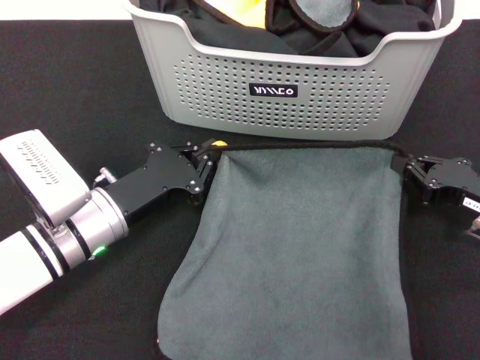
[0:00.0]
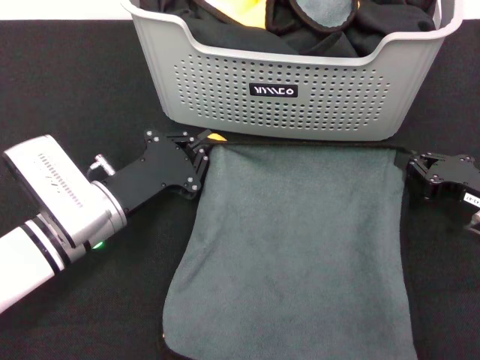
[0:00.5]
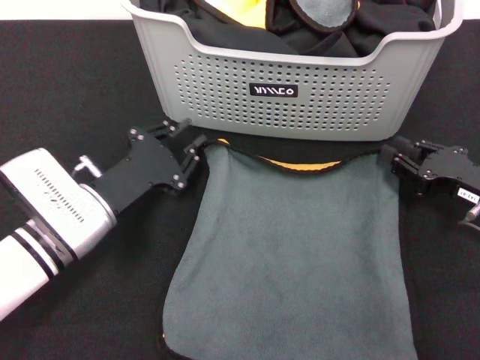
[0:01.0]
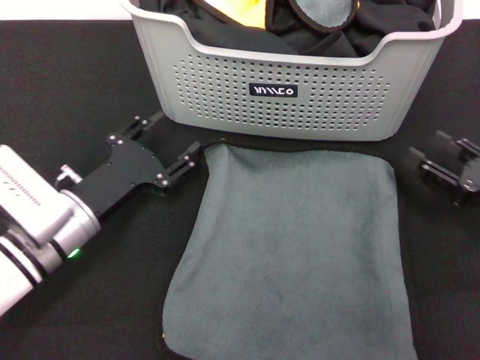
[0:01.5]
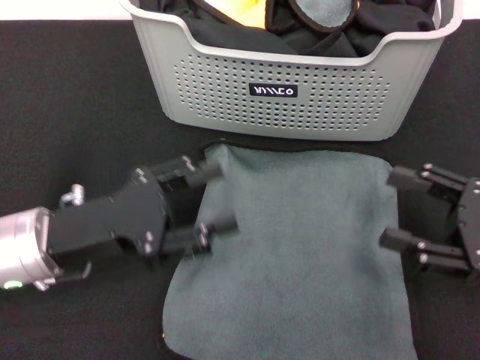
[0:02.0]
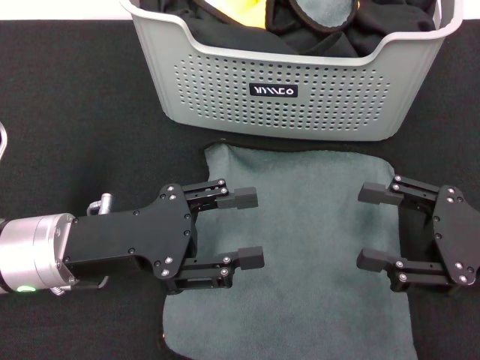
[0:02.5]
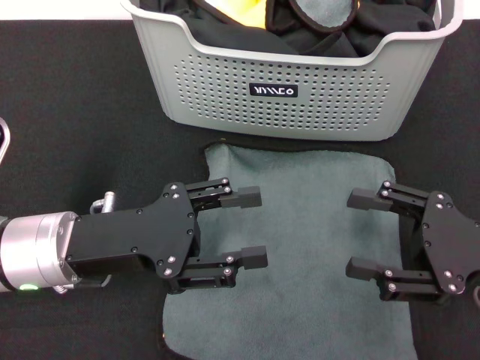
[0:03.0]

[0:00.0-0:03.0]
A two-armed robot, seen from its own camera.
Task of the whole recording: pick up the towel from the storage box and lay it flat on the black tablecloth.
0:00.0 to 0:01.5: The left gripper opens up, while the right gripper opens up.
0:01.5 to 0:03.0: The left gripper goes some 5 cm upward; the right gripper ends up approximately 5 cm from where it was.

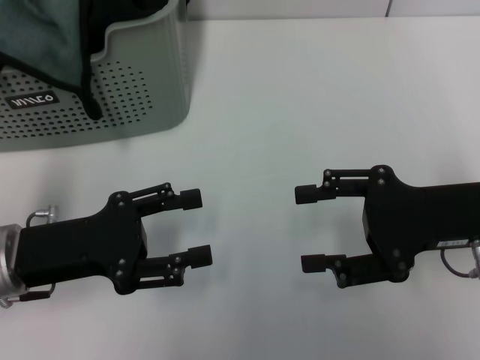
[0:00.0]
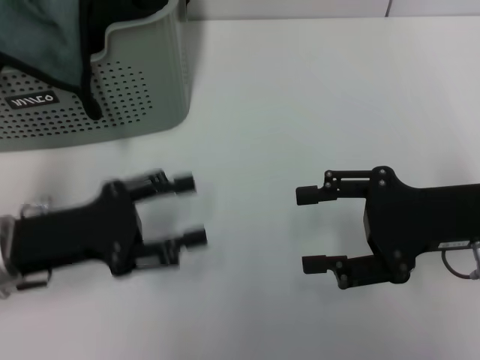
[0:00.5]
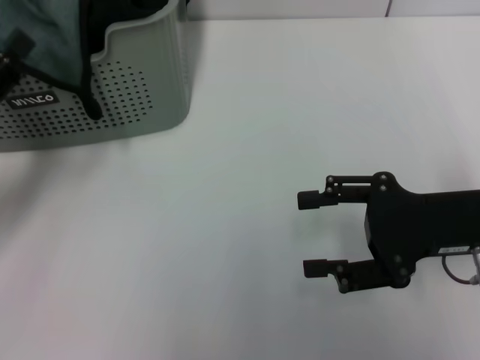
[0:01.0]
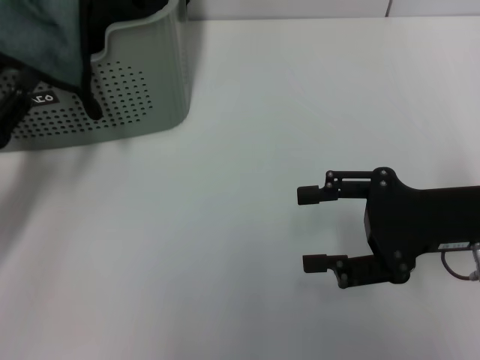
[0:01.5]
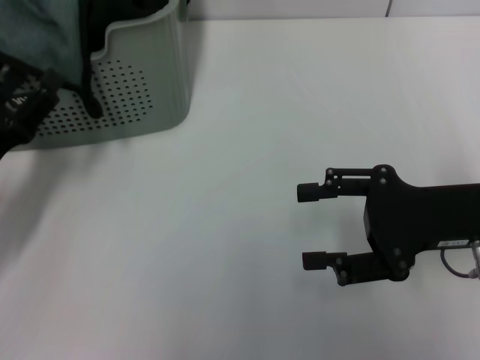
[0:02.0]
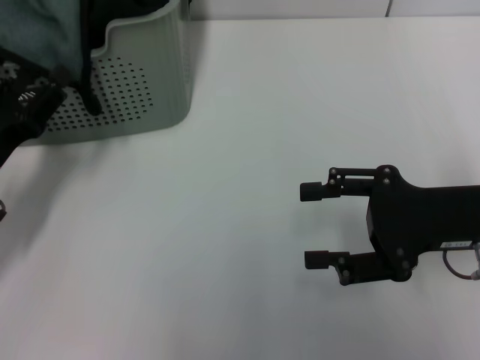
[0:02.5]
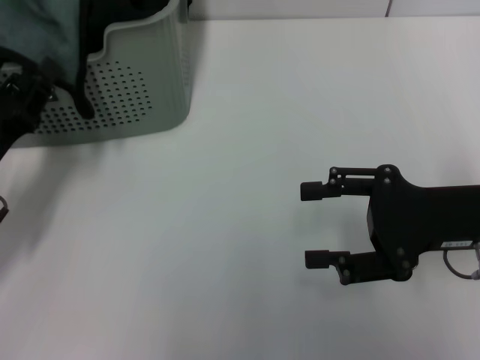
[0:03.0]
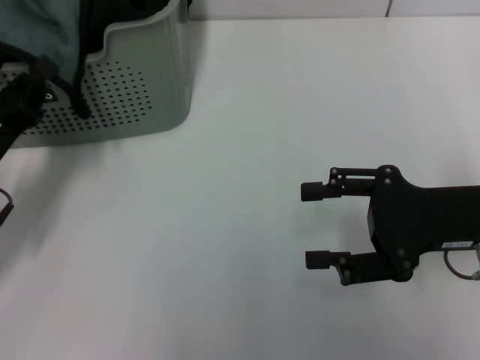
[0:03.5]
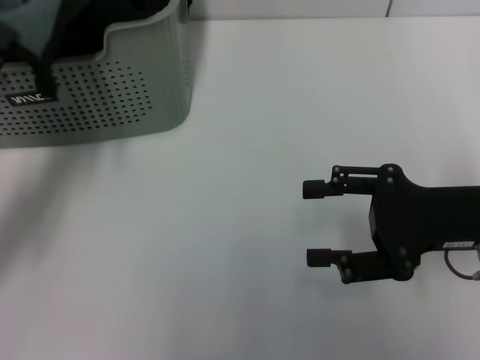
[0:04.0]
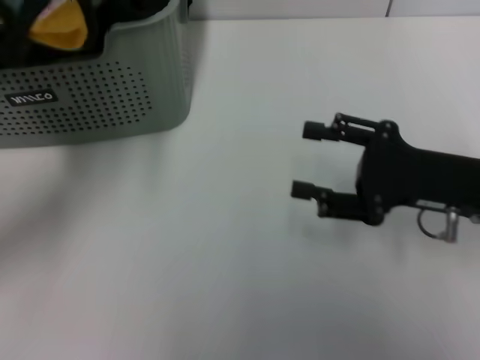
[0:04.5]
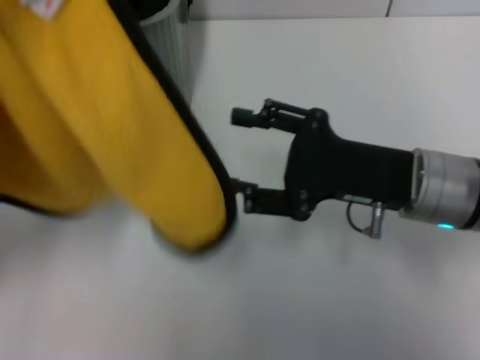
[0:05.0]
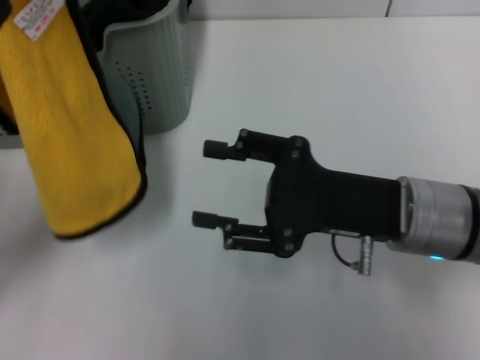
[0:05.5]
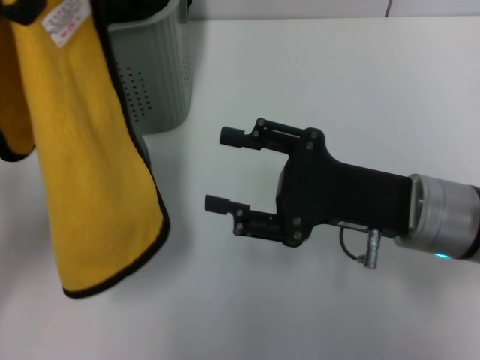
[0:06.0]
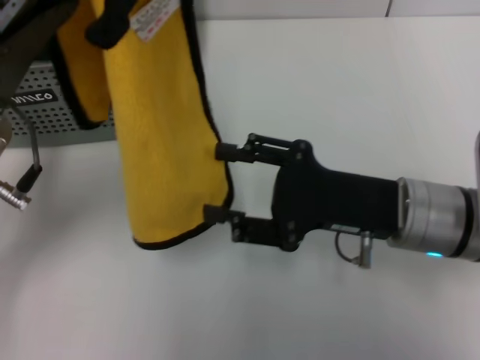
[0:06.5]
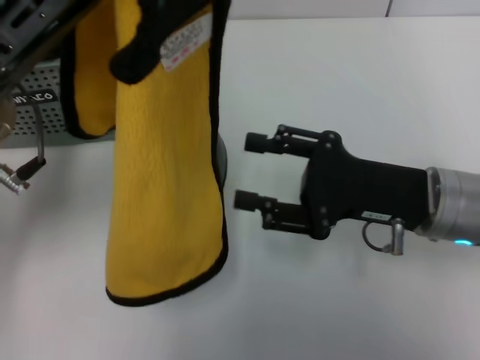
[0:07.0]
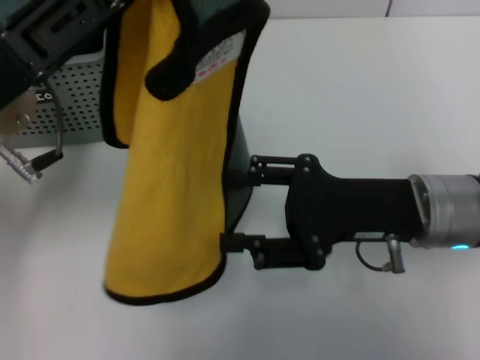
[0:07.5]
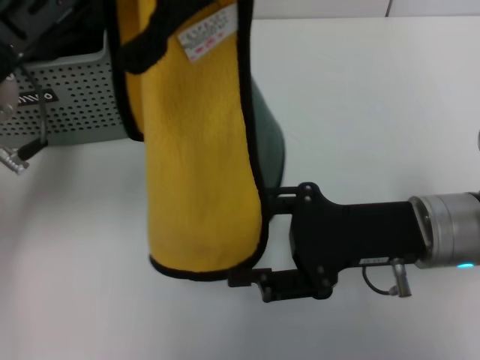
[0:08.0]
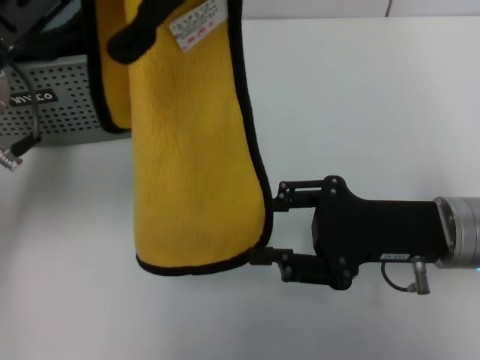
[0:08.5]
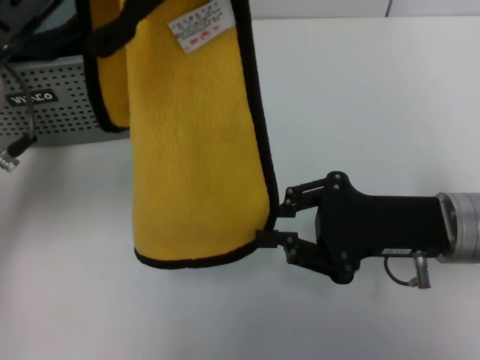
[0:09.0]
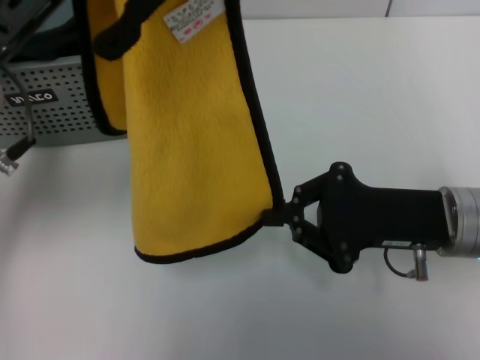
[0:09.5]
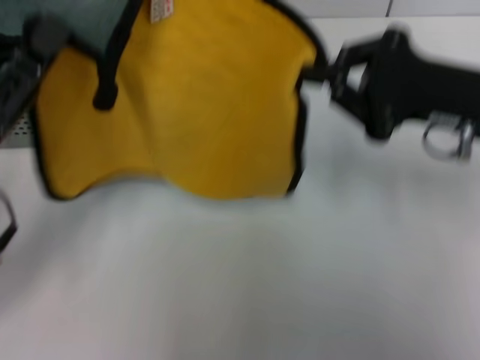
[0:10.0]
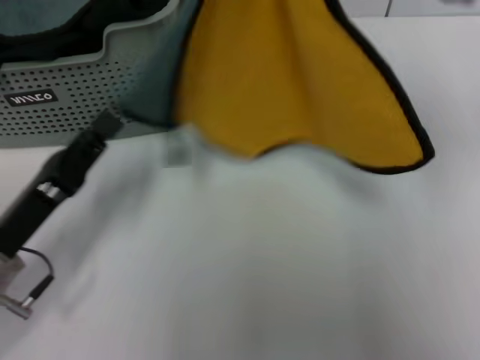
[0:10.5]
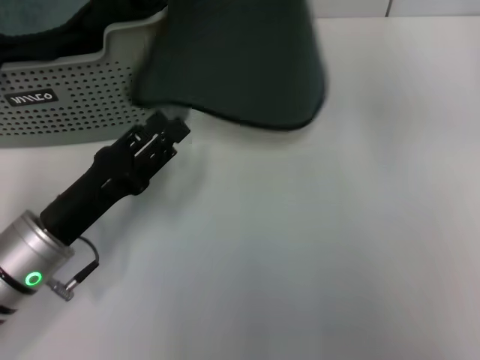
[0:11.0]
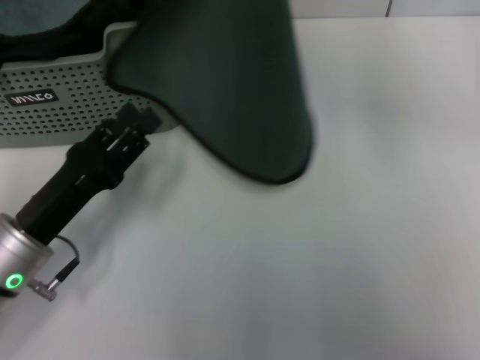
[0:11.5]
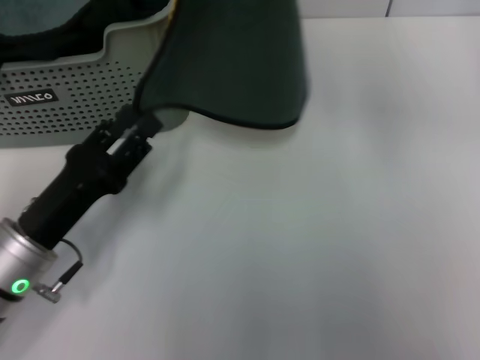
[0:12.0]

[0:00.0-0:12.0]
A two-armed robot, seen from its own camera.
Task of the whole recording: pick up the towel from the storage box and lay it flat on the table.
Step, 0:00.0 to 0:03.0: Pick up a towel with the left gripper.
Step, 0:03.5 to 0:09.0: Spread the towel flat with the left gripper.
0:00.0 to 0:02.0: The left gripper goes approximately 5 cm to the left.
0:02.0 to 0:04.0: The left gripper closes.
0:04.0 to 0:06.0: The left gripper heads upward and to the right, covering about 10 cm. Meanwhile the right gripper is displaced to the left by about 5 cm.
0:06.0 to 0:08.0: The left gripper changes place by about 5 cm.
0:08.0 to 0:10.0: The right gripper travels upward by roughly 5 cm, and closes up; the left gripper is displaced downward and backward by roughly 10 cm.
0:10.0 to 0:12.0: The right gripper travels upward by approximately 15 cm, while the left gripper shifts about 5 cm downward, and opens.

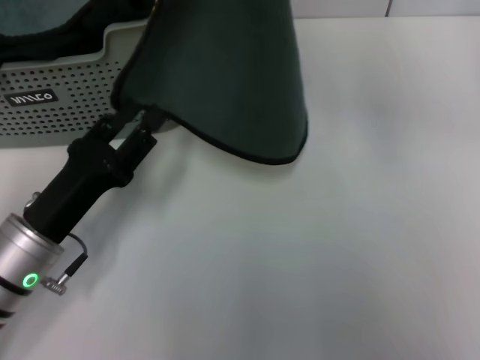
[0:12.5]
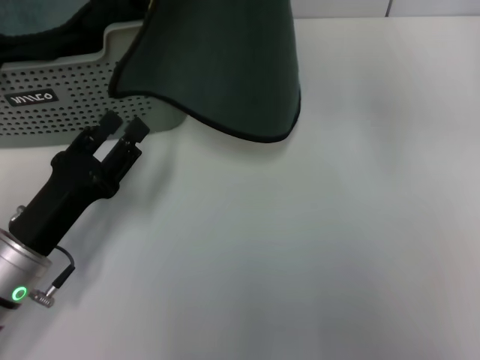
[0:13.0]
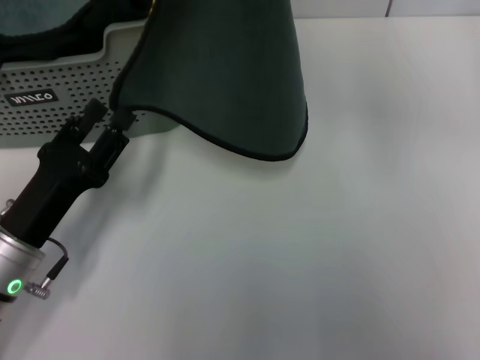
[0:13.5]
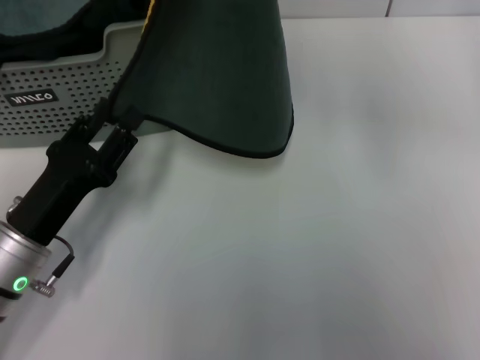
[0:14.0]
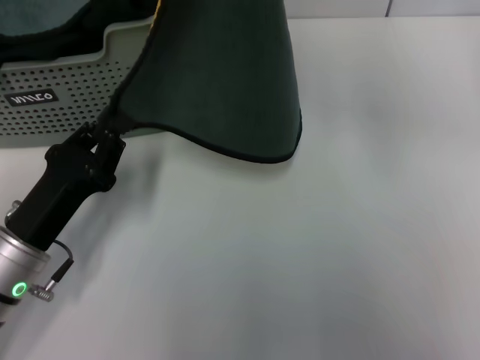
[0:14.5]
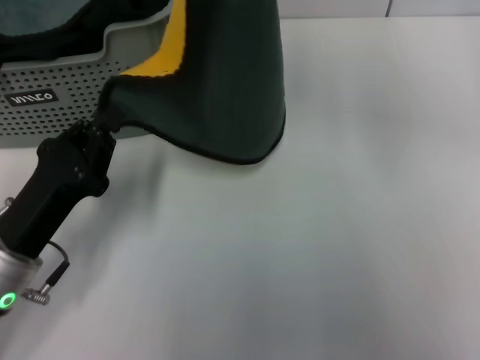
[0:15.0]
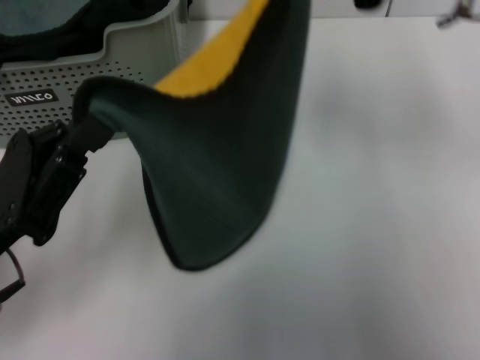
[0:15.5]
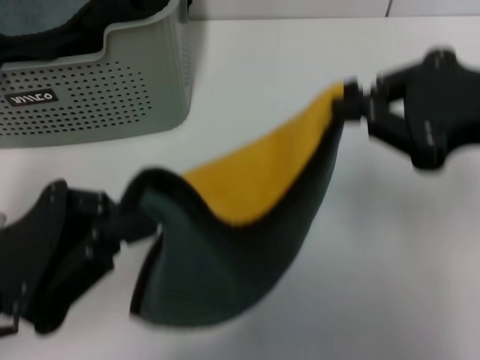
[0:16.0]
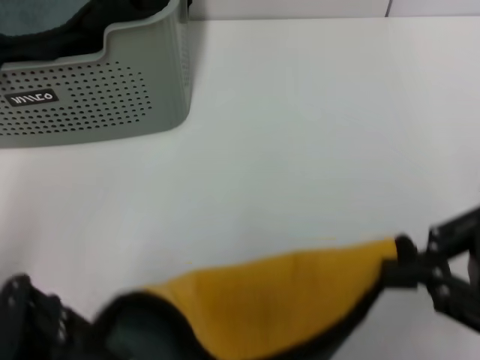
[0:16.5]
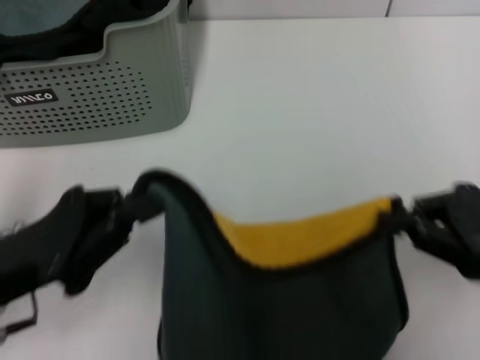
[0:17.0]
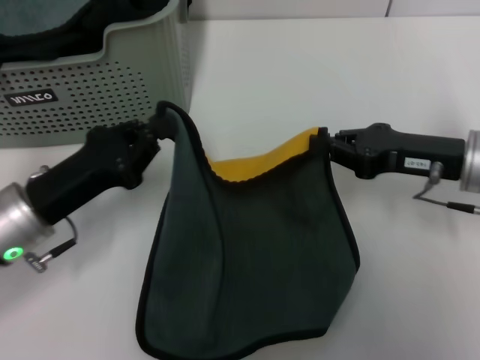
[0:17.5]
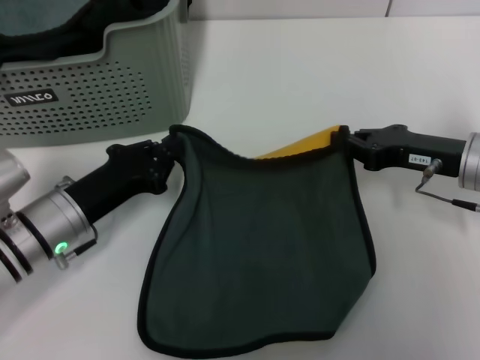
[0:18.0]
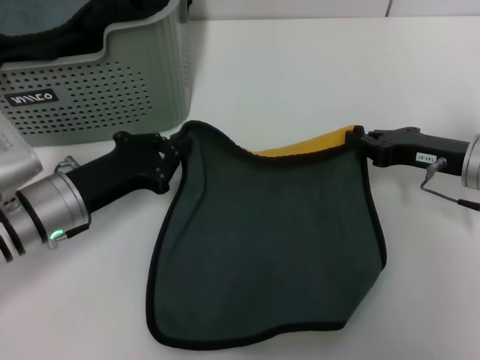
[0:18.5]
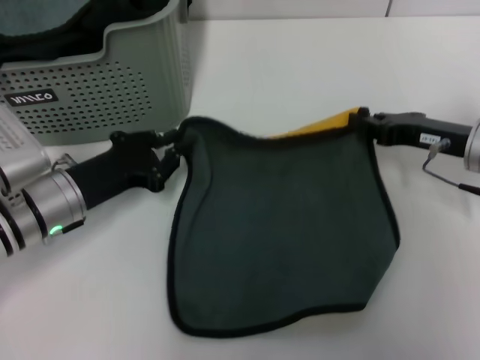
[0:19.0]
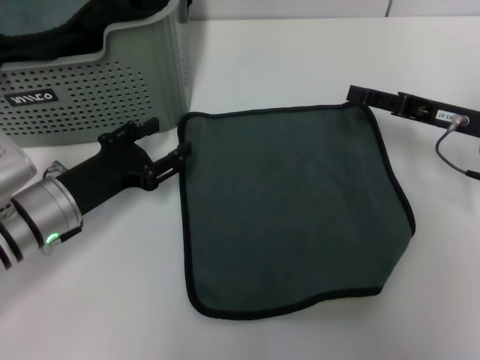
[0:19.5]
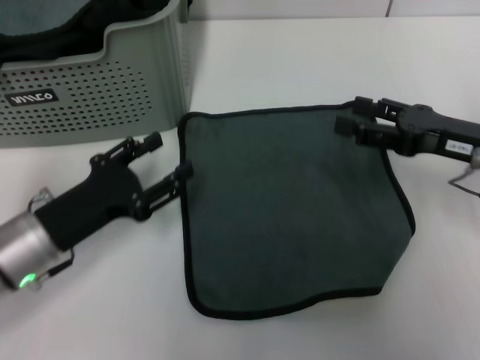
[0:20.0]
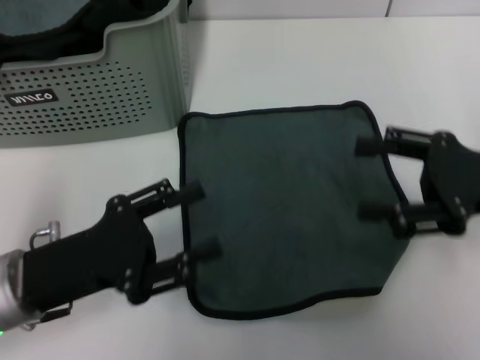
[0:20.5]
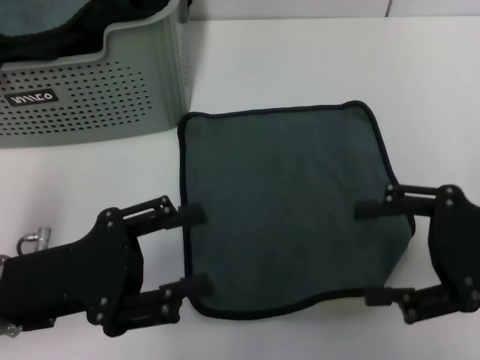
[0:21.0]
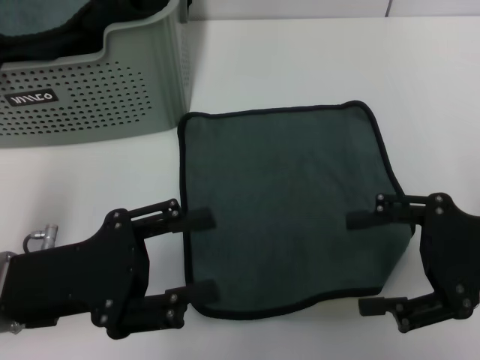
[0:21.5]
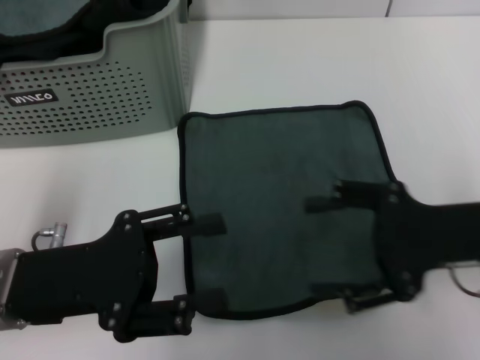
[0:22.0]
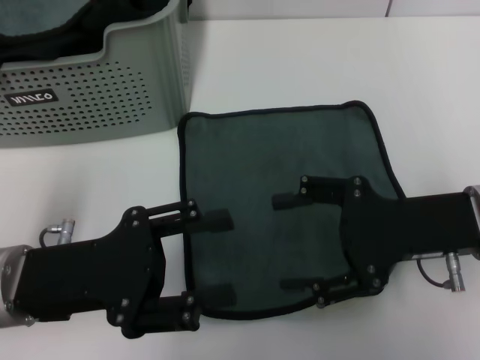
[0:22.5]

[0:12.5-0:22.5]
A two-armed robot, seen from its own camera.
Task of the whole recording: pick up the towel from the storage box and lay it flat on the table.
Step, 0:12.5 to 0:19.0: Spread the towel flat with the right gripper.
0:12.5 to 0:14.5: The left gripper closes.
0:14.5 to 0:16.5: The left gripper travels upward and backward by approximately 15 cm. The right gripper goes approximately 25 cm backward, to the right and downward.
0:16.5 to 0:18.5: The grippers both shift forward and downward by approximately 20 cm.
0:18.5 to 0:20.5: The right gripper shifts some 10 cm upward and backward, and opens its fingers. Meanwhile the left gripper travels backward by some 10 cm, and opens up.
0:20.5 to 0:22.5: The right gripper travels to the left by approximately 5 cm.
